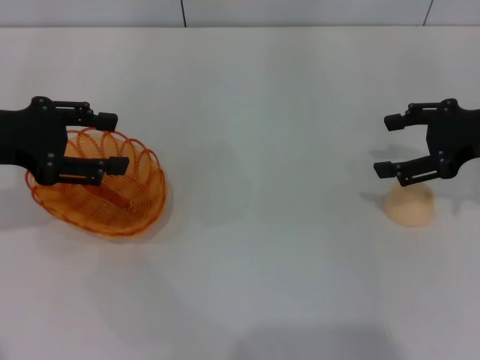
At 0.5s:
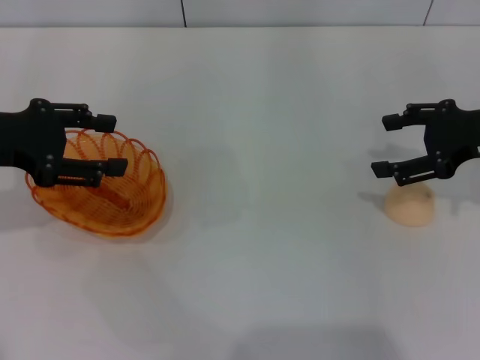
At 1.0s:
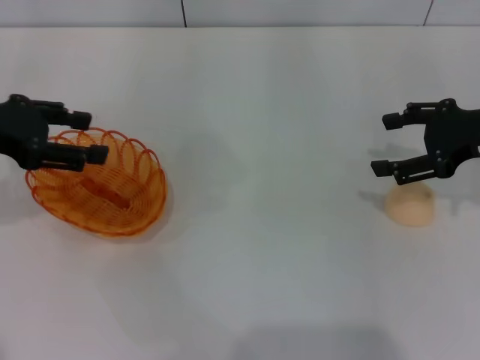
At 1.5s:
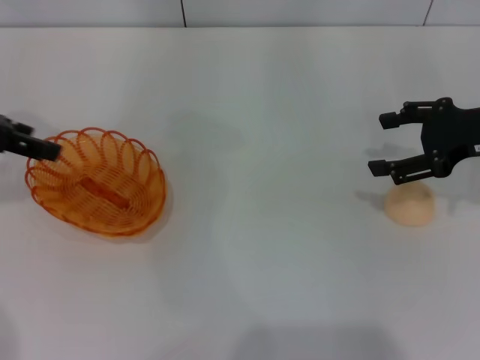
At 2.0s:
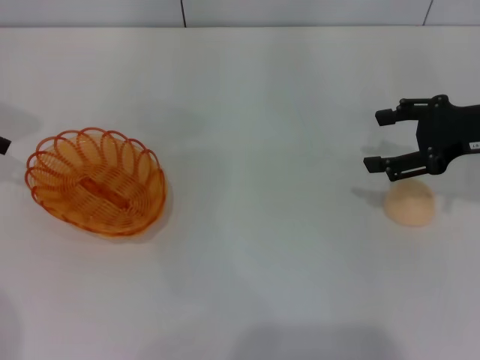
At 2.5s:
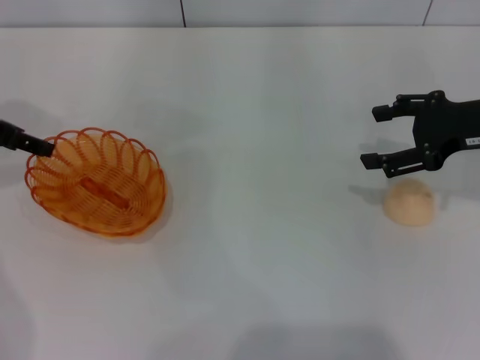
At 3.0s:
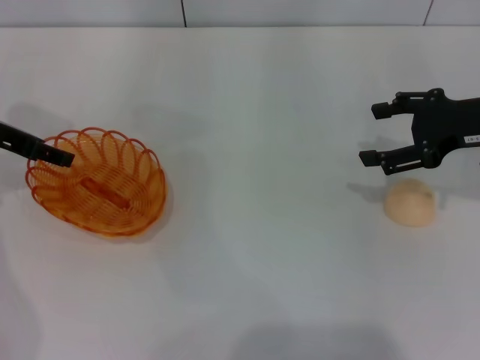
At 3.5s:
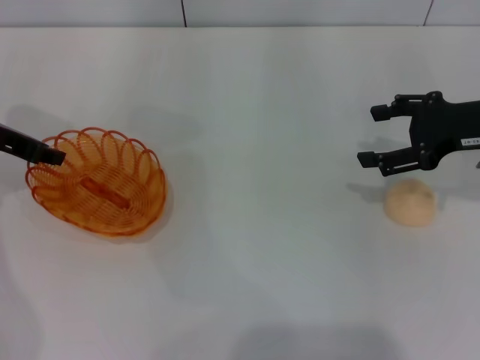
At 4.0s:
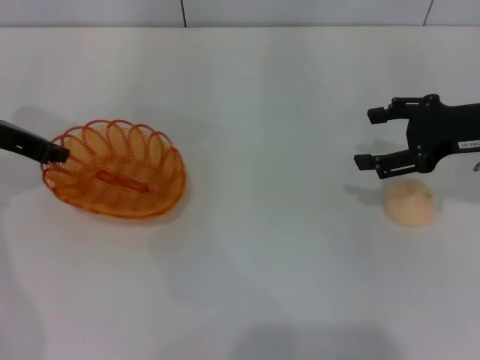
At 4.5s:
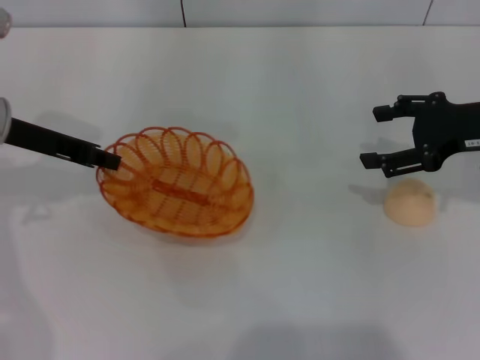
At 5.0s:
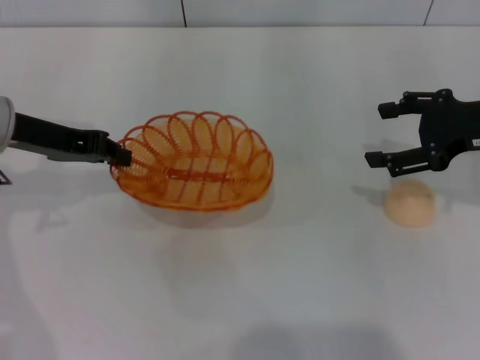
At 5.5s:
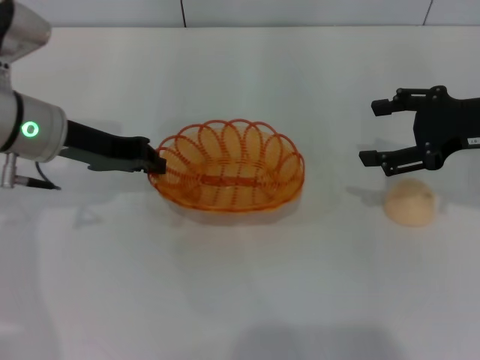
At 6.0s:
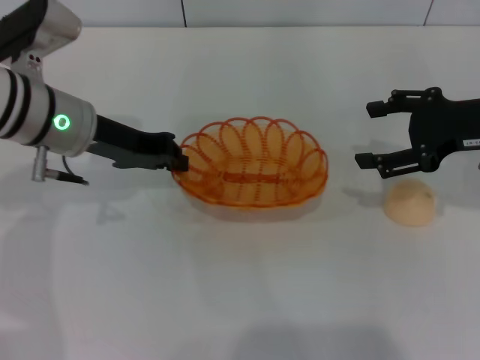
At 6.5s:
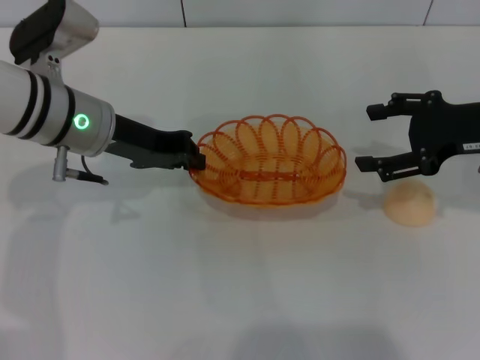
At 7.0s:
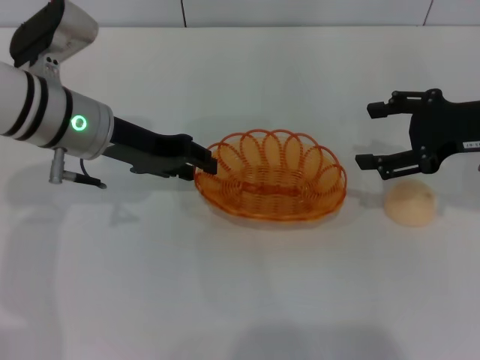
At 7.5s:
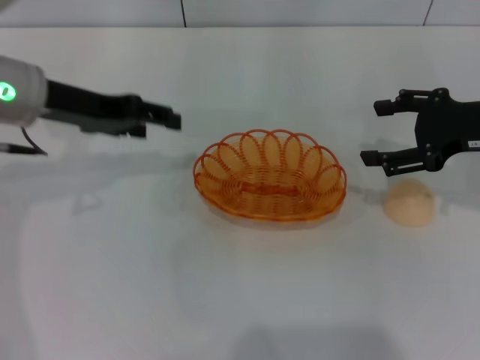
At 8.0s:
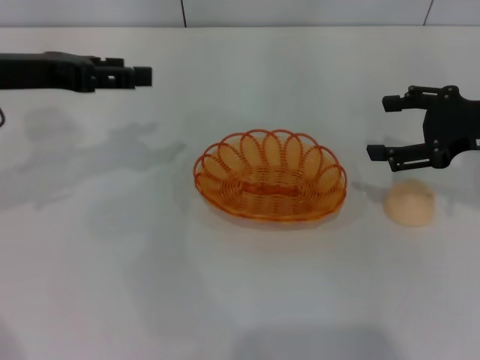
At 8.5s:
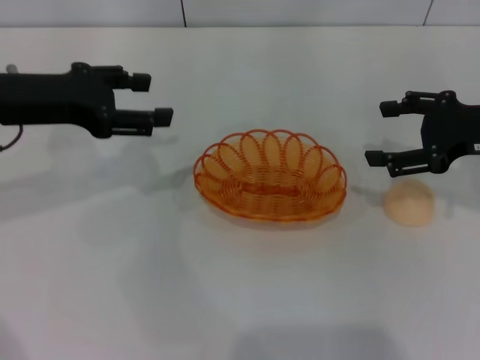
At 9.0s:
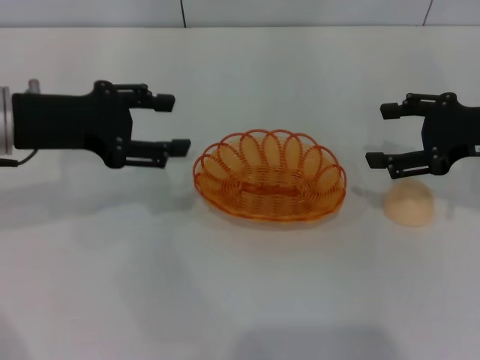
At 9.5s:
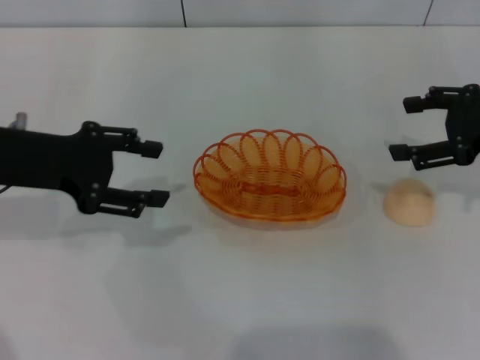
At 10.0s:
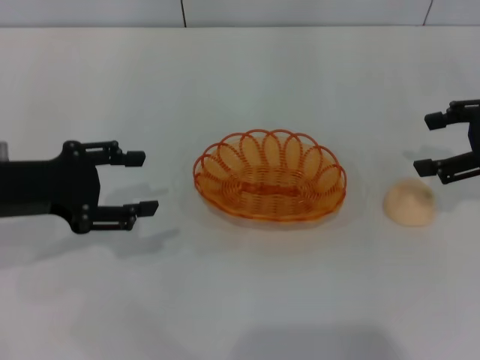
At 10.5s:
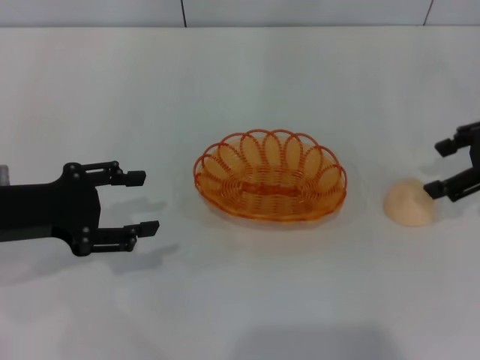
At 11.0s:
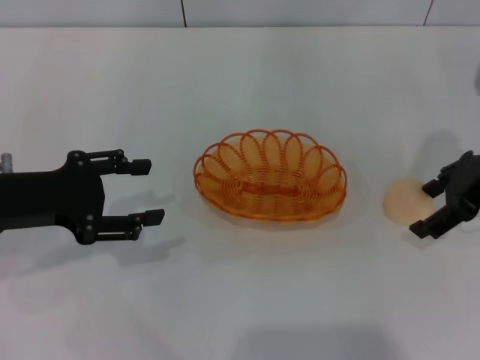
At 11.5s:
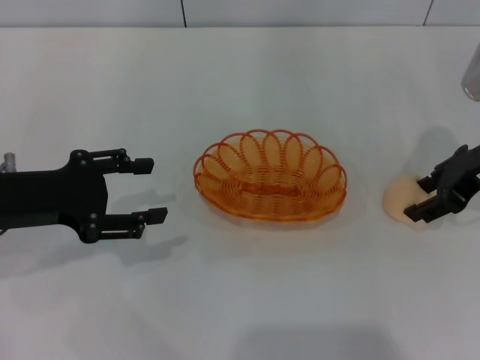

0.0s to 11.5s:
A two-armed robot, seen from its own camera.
Step, 0.0s to 5.0s: Pick up the basket with the left gripper.
Step, 5.5s to 7.0s: Place the basket in the center of view with the left gripper.
0.0s to 2.0s: The left gripper changes place by roughly 5 cm.
2.0s to 4.0s: The left gripper travels downward by some 5 cm, and closes.
4.0s to 6.0s: The left gripper moves to the right, approximately 10 cm.
6.0s to 7.5s: The left gripper ends up roughly 5 cm from where it was, and opens.
7.5s to 9.5s: The left gripper moves approximately 5 cm.
9.5s to 11.5s: The left gripper ends up roughly 5 cm from where it was. Meanwhile the right gripper shifts by roughly 5 cm.

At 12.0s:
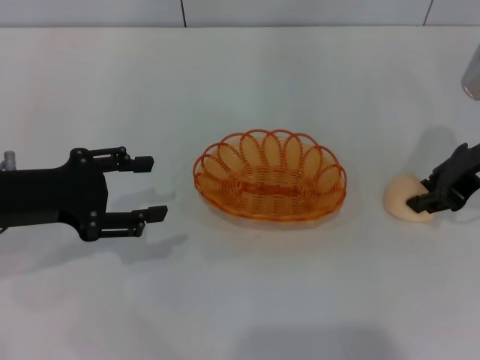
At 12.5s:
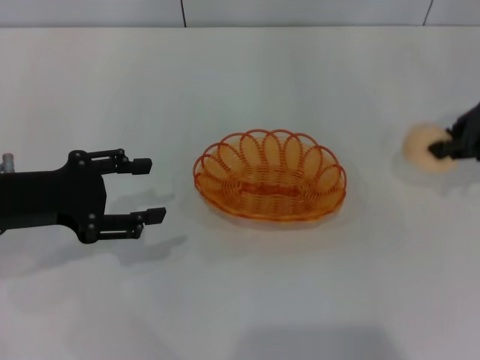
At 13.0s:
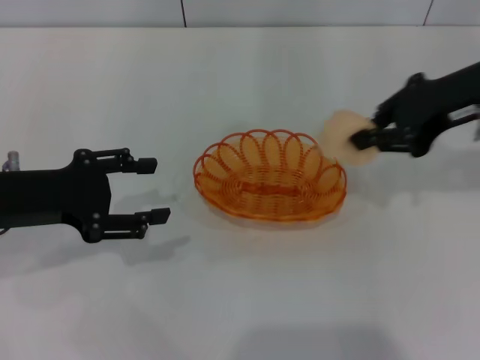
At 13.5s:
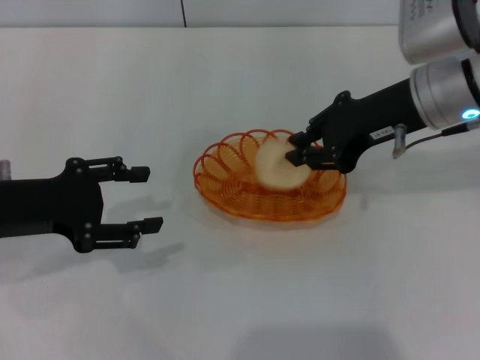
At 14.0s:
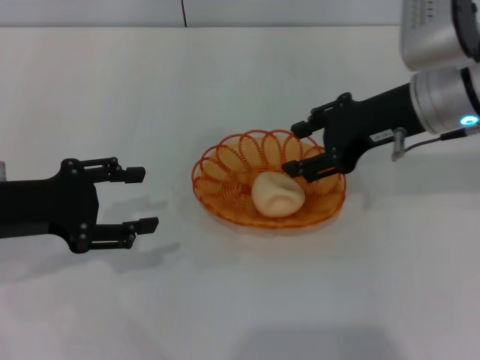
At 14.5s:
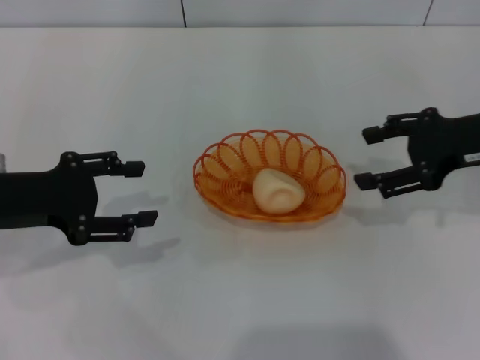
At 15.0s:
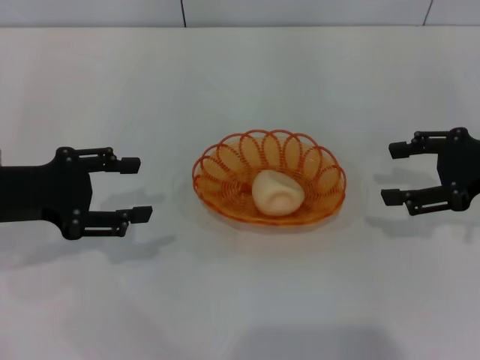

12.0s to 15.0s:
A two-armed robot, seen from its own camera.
Step, 12.5s to 13.5s: Place the egg yolk pastry into the basket with the right gripper.
12.0s to 13.5s: The right gripper goes roughly 10 cm to the left, and closes its fingers.
13.5s to 15.0s: The right gripper moves to the right and downward, about 15 cm, and opens up.

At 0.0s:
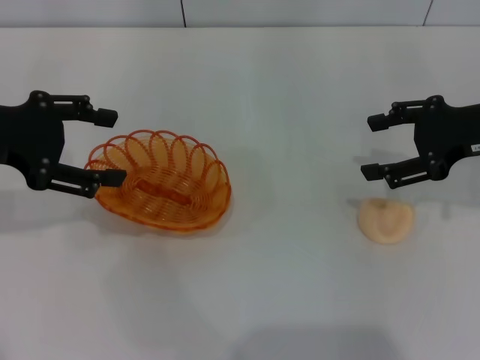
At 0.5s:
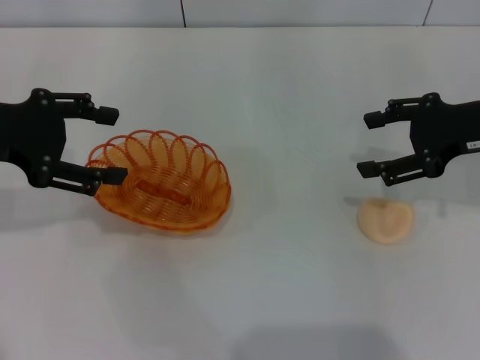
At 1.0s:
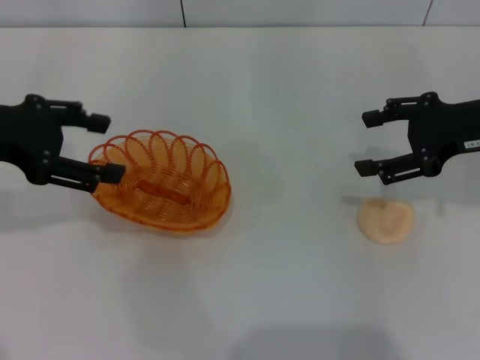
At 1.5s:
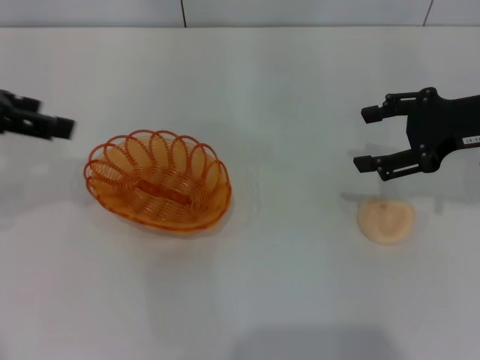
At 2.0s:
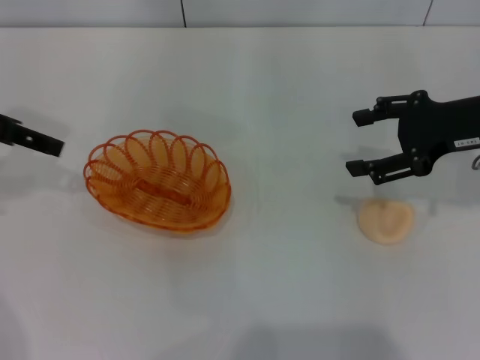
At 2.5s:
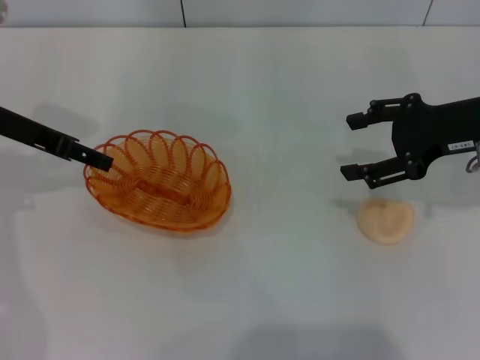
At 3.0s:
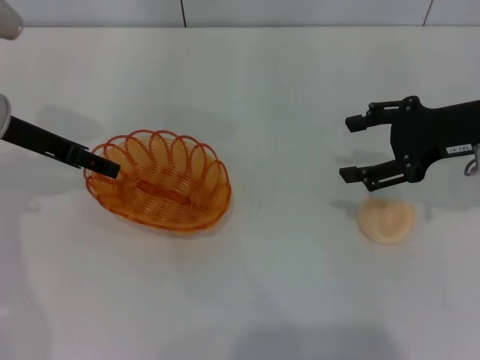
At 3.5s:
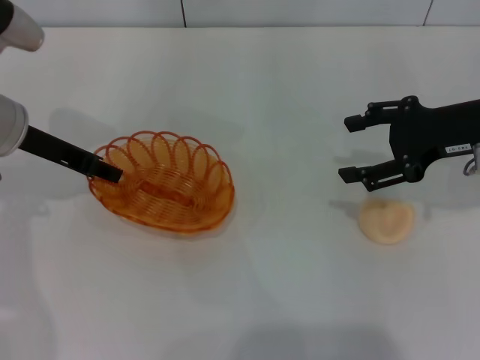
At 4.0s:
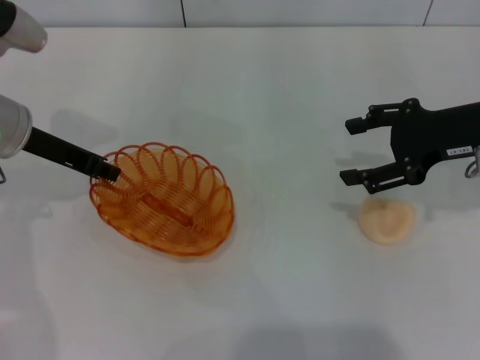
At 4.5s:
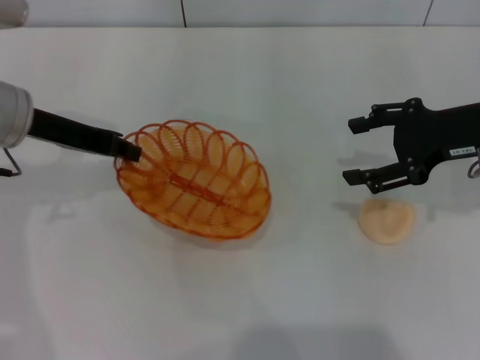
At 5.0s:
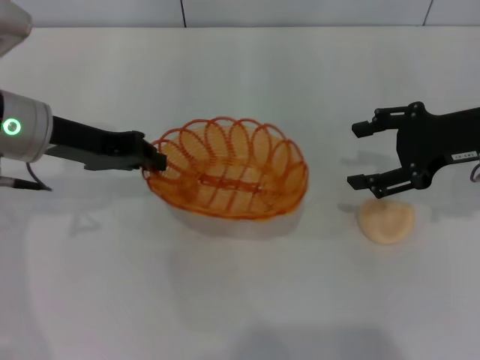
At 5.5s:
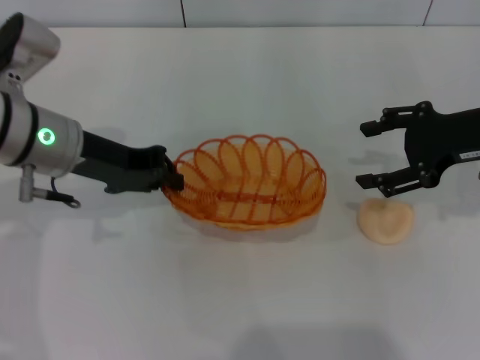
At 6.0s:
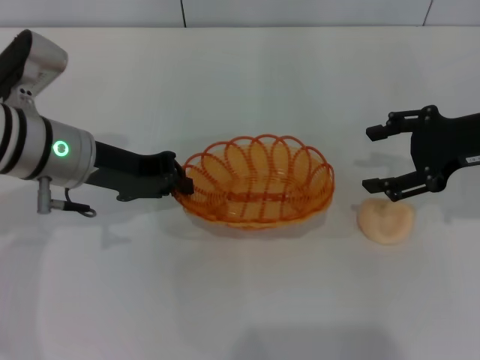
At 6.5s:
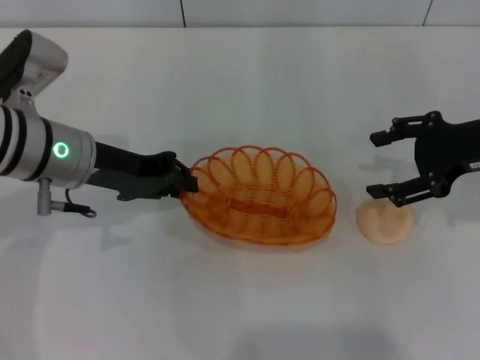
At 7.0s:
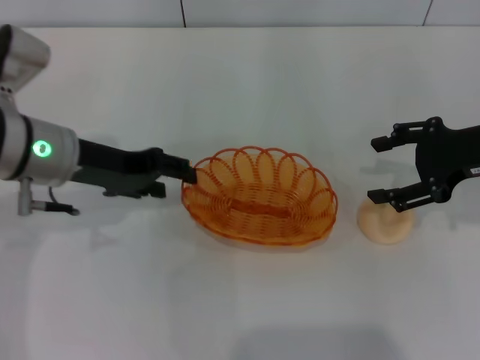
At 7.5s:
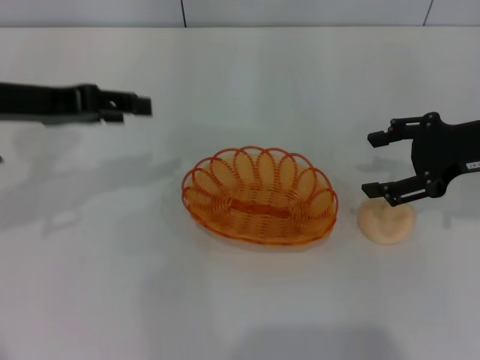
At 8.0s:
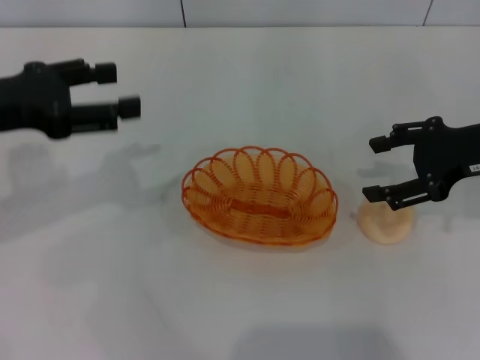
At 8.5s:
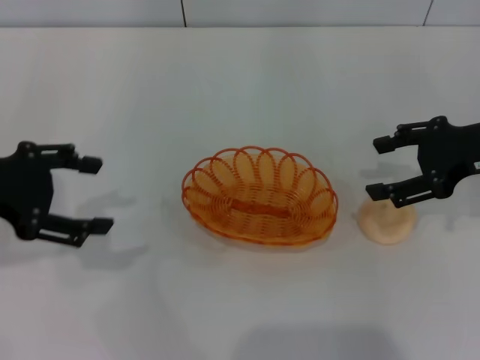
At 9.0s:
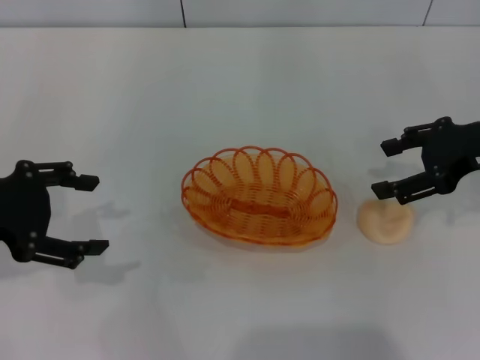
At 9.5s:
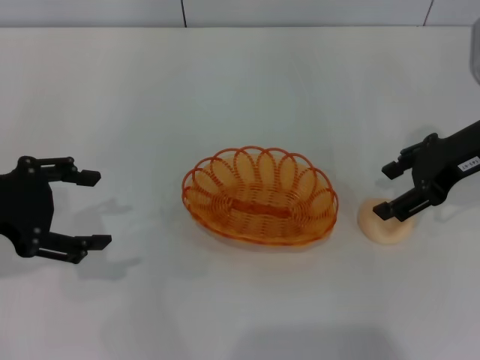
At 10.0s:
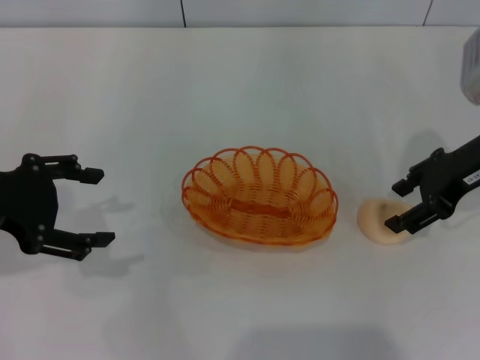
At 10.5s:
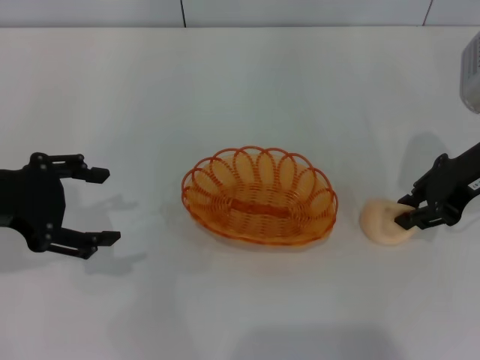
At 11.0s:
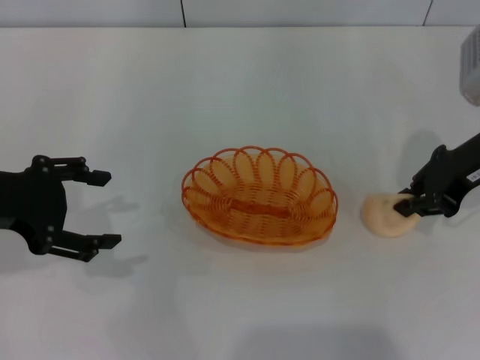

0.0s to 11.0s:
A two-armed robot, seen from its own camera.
Step, 0.0s to 5.5s: Pick up the basket with the left gripper.
Step, 6.0s to 8.0s: Place the basket in the center of view with the left gripper.
2.0s to 3.5s: The left gripper moves downward and to the right, about 10 cm, and closes.
3.5s to 5.5s: The left gripper travels to the right by approximately 5 cm, and closes up.
5.5s to 7.5s: The left gripper shifts approximately 10 cm to the left and upward, and opens its fingers.
7.5s to 9.0s: The left gripper goes approximately 5 cm backward.
9.0s to 11.0s: The right gripper closes its fingers.
